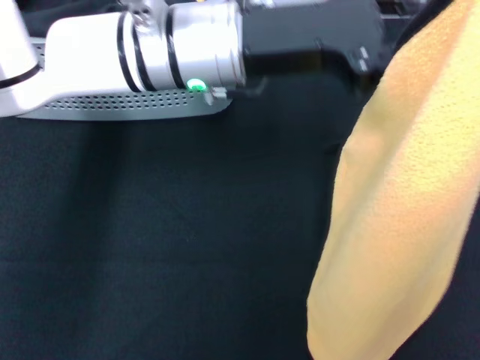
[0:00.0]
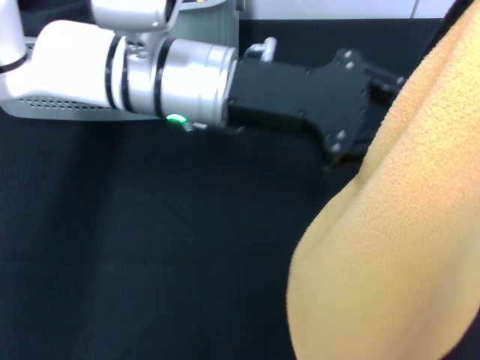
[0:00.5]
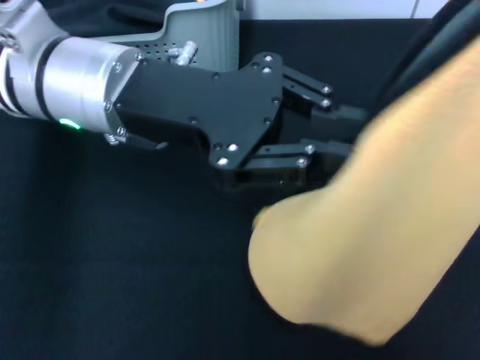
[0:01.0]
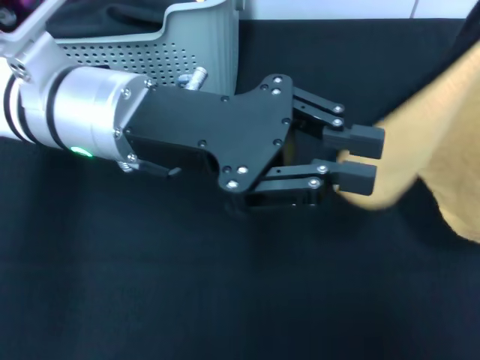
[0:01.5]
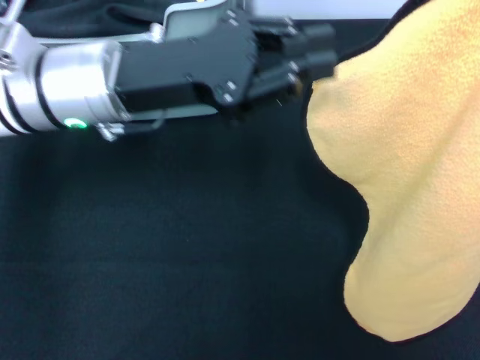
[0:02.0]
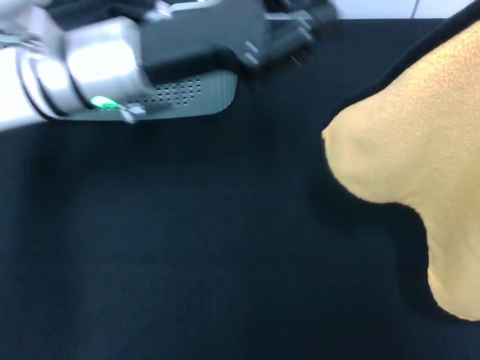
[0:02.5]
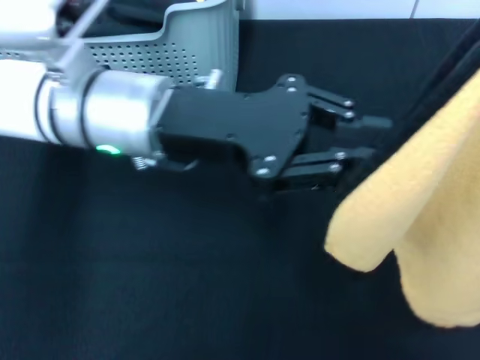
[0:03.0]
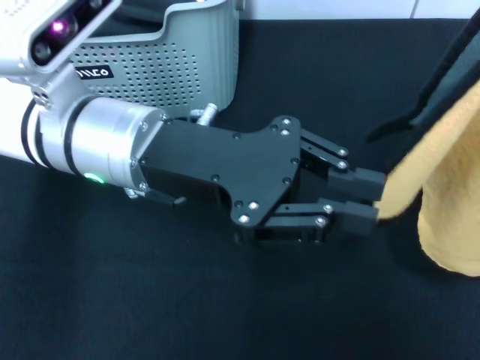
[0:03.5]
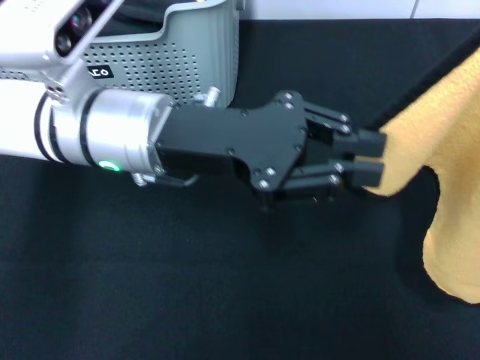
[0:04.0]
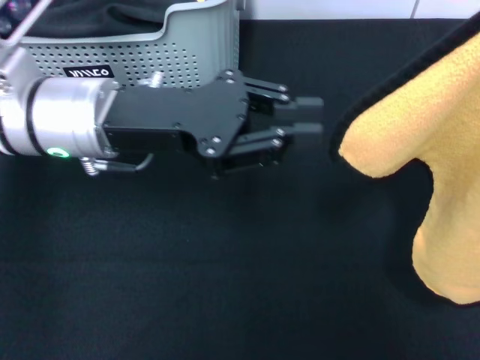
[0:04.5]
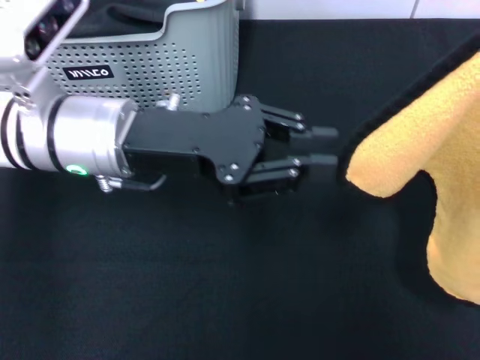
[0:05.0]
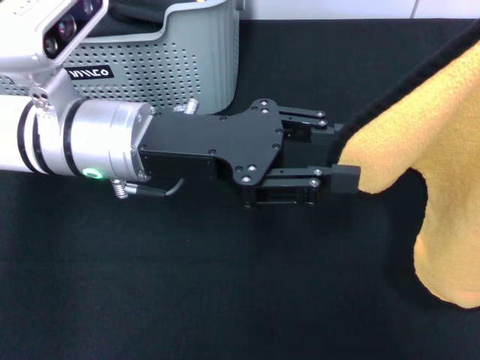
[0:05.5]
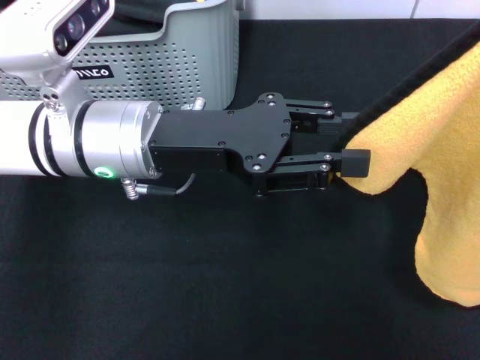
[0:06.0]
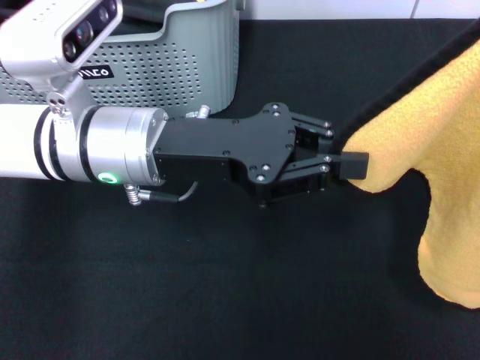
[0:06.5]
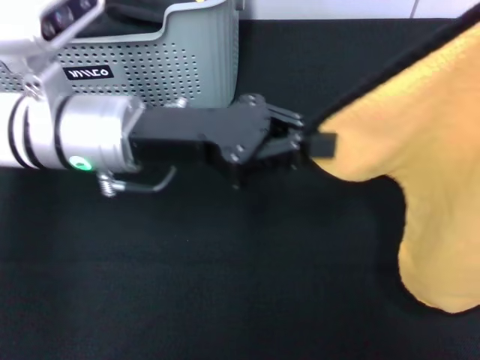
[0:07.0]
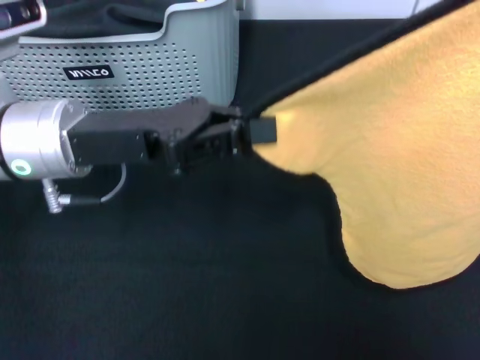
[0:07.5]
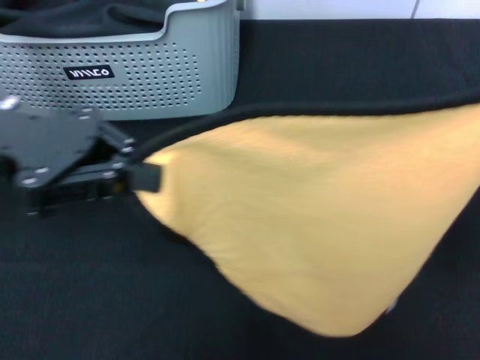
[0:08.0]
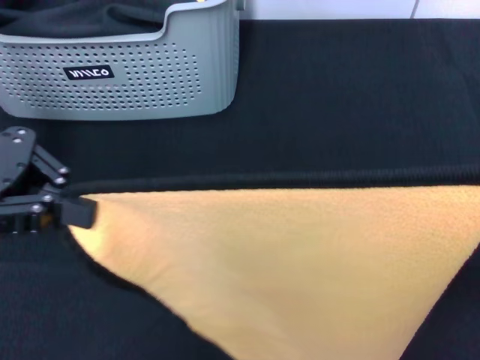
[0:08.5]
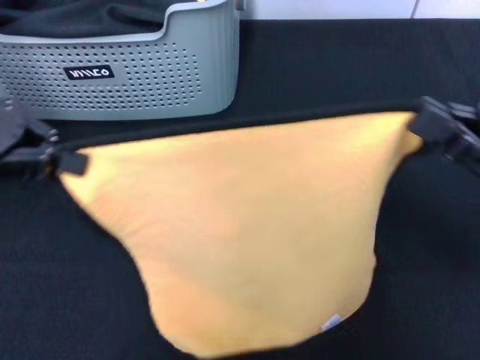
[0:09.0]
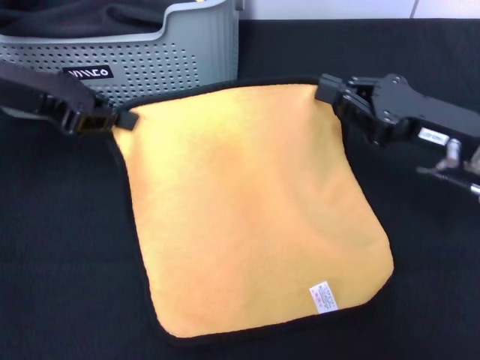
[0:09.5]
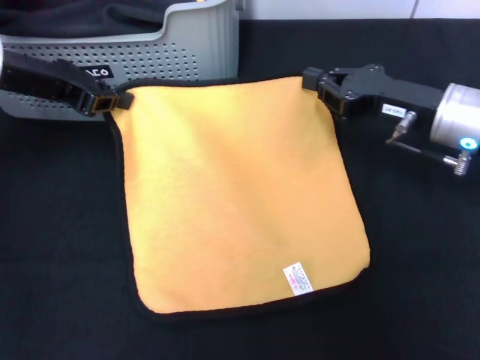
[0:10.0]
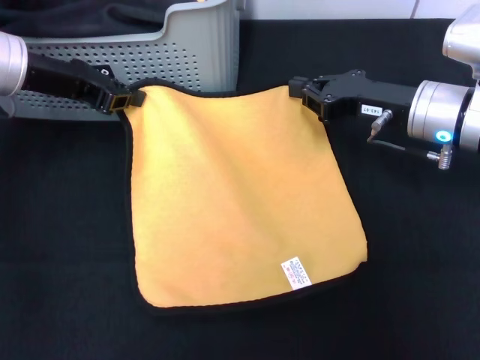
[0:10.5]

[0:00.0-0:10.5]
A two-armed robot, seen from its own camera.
Task of the whole recording: pick up the towel from the storage box and lay it flat on the black tablecloth.
0:00.0 to 0:02.0: The left gripper is displaced to the left by some 10 cm. Meanwhile the right gripper ends up about 5 cm from where it was.
0:04.0 to 0:06.5: There are only small adjustments of the grippers.
0:06.5 to 0:08.5: The right gripper heads downward, backward and to the left, covering roughly 20 cm; the left gripper is displaced to the left and upward by some 20 cm, and closes.
0:08.5 to 0:10.5: The left gripper is displaced forward and downward by approximately 15 cm. Meanwhile the right gripper goes roughly 20 cm forward and to the left.

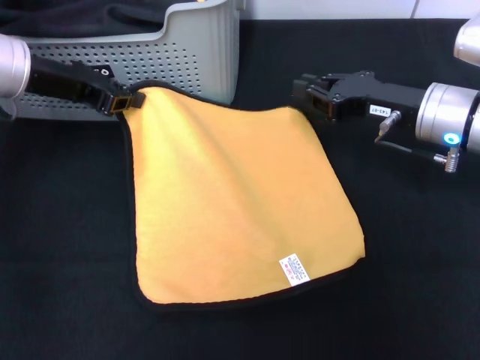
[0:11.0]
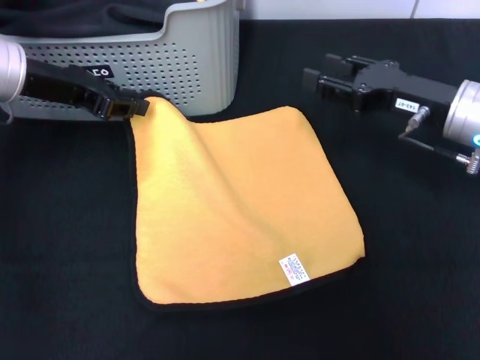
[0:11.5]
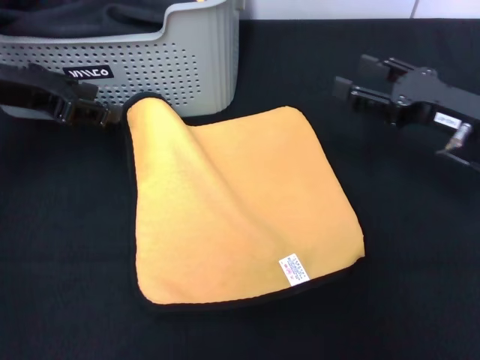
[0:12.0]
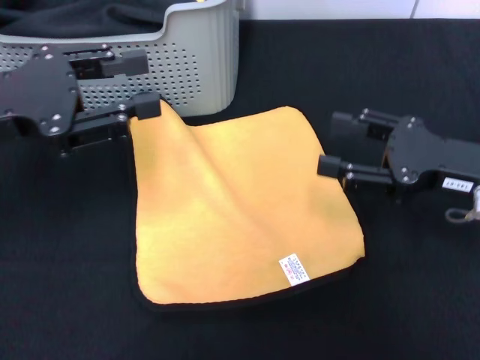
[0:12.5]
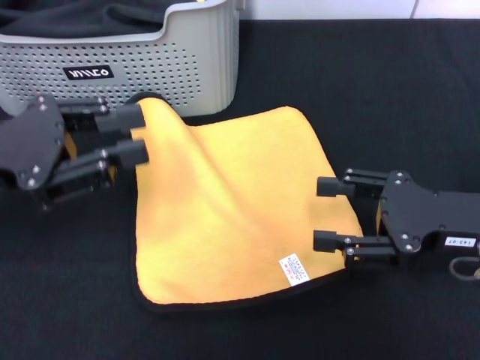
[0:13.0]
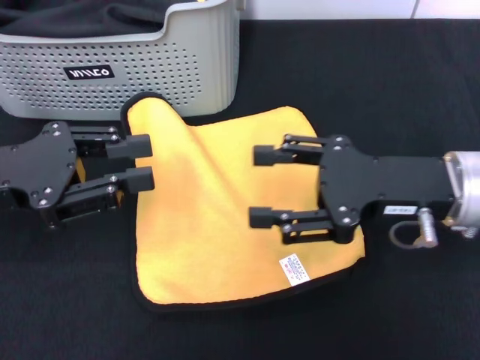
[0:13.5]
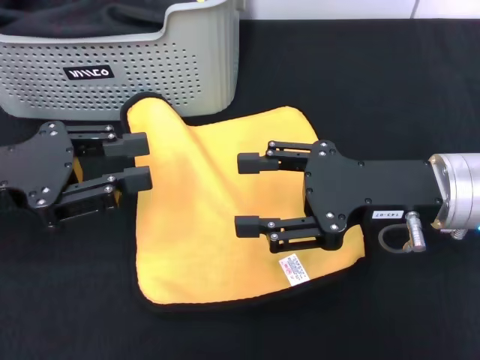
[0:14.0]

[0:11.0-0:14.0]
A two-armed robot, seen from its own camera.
Task of the whole recording: pick up the towel from the storage box and lay it flat on the black tablecloth.
0:11.0 to 0:12.5: The right gripper travels backward and to the right by approximately 10 cm, and opens its fingers; the left gripper is displaced backward by approximately 10 cm, and opens up.
0:12.5 to 0:14.0: The right gripper heads to the left, covering approximately 5 cm.
